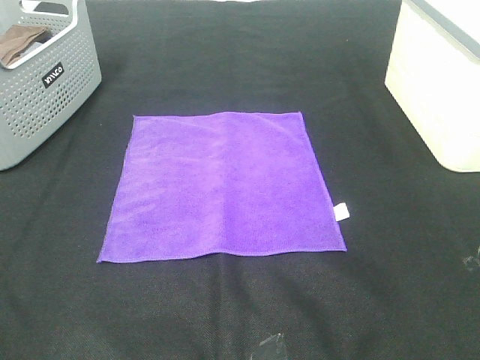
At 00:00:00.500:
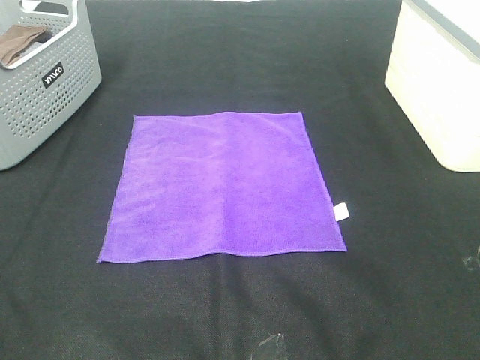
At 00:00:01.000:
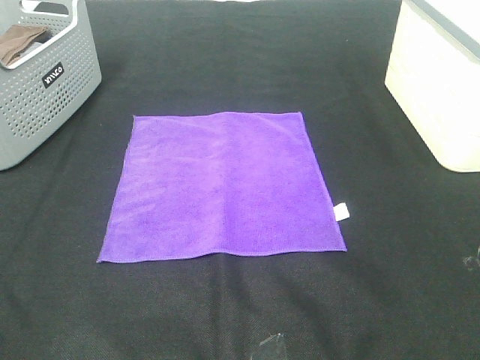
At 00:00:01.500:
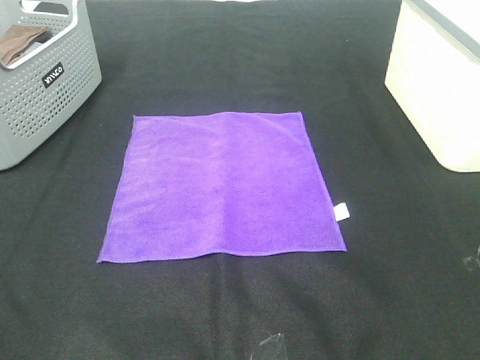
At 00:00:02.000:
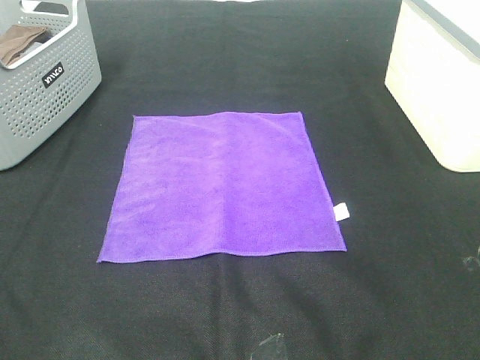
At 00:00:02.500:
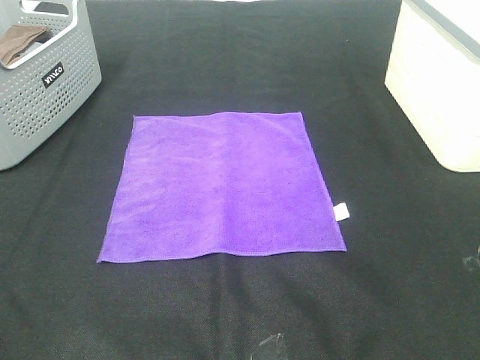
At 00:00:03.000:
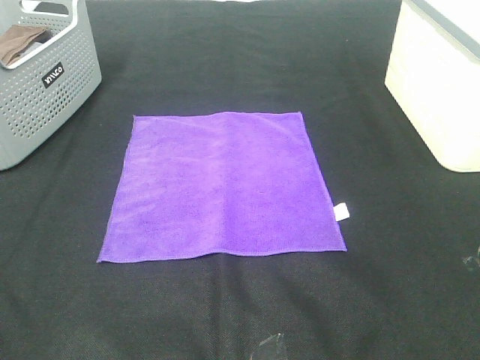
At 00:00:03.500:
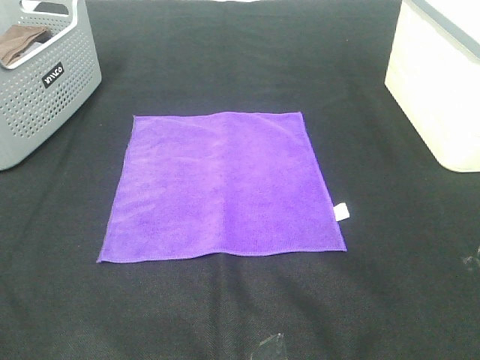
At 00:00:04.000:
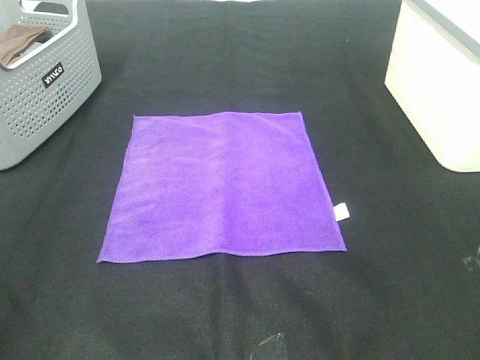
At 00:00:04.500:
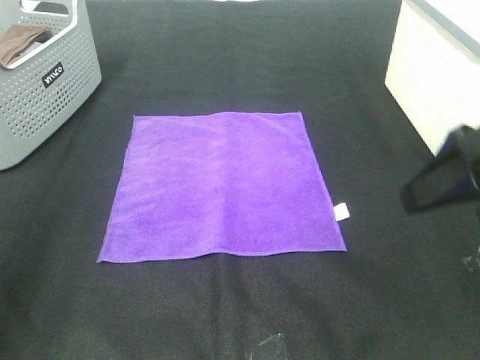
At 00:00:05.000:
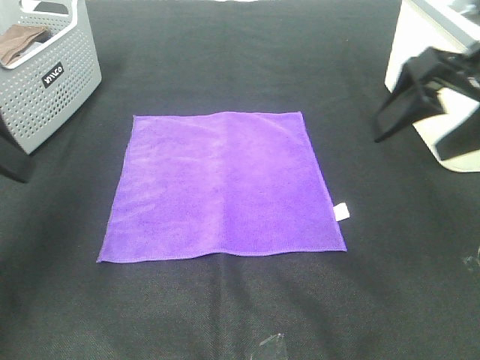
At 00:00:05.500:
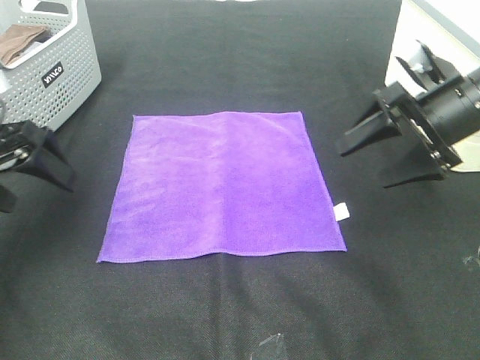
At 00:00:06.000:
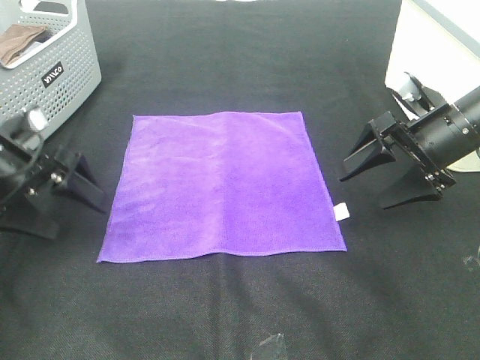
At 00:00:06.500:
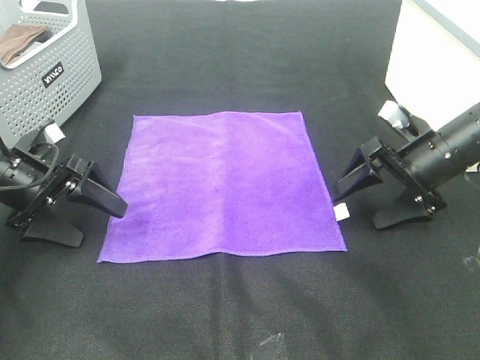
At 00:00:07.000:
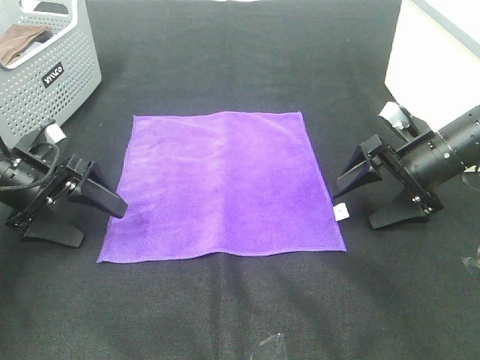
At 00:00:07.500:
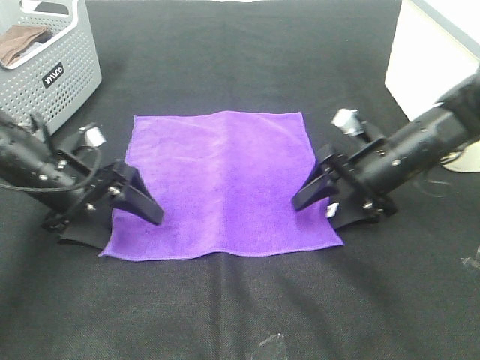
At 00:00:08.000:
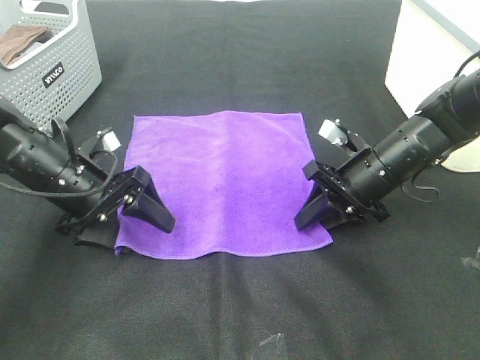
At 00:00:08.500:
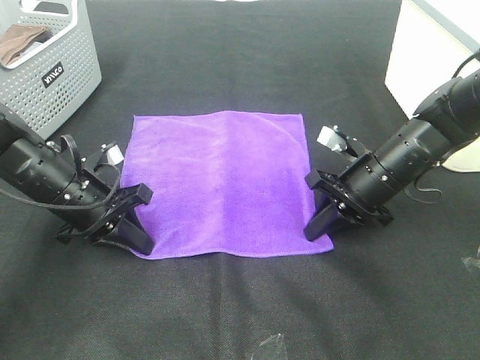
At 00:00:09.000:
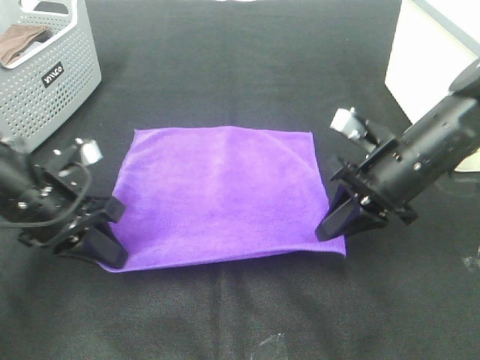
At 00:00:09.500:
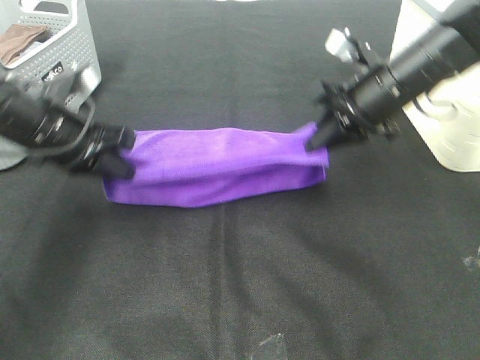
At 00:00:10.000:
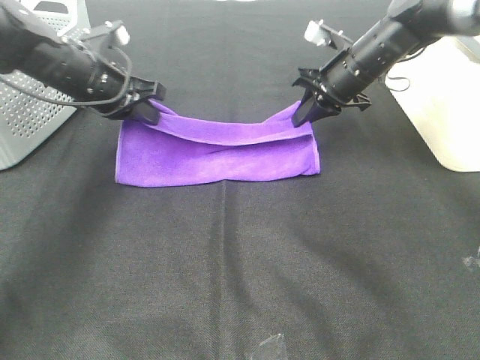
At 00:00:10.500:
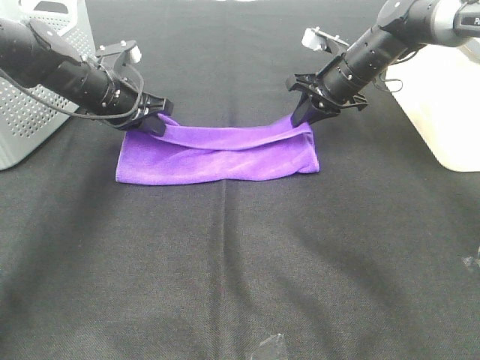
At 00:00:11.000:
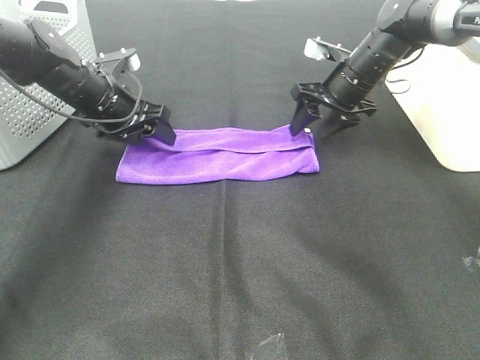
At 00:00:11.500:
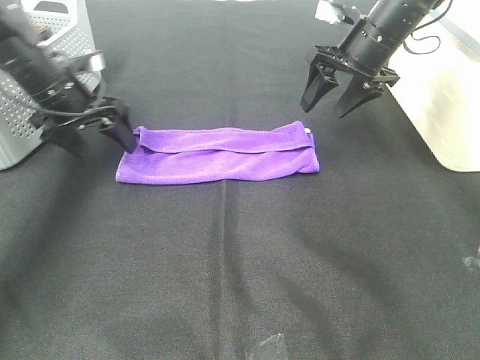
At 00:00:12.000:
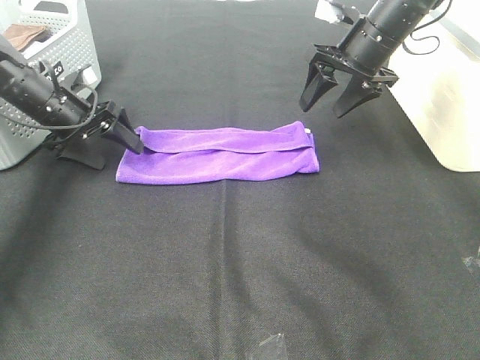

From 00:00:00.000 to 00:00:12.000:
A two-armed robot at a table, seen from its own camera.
Task of the whole recording: Fold towels.
Step, from 00:00:00.000 to 00:00:08.000: Left hand: grab the bottom left corner of purple towel.
Step, from 00:00:00.000 to 00:00:08.000: Right hand: grab the bottom right corner of purple towel.
Step, from 00:00:08.500 to 00:00:10.500: Left hand: fold the purple towel up.
Step, from 00:00:08.500 to 00:00:10.500: Right hand: fold the purple towel up.
From 00:00:00.000 to 00:00:02.000: The two grippers keep their place.
From 00:00:04.000 to 00:00:06.000: The grippers both shift forward and downward by approximately 30 cm.
From 00:00:06.000 to 00:00:08.000: The right gripper shifts some 10 cm downward and to the left, and closes, while the left gripper shifts roughly 10 cm to the right.
From 00:00:08.000 to 00:00:10.000: Both grippers travel together forward and upward, roughly 15 cm. The left gripper closes its fingers.
From 00:00:10.000 to 00:00:12.000: The right gripper moves upward, roughly 5 cm, and opens up; the left gripper goes some 10 cm to the left and downward, and opens.

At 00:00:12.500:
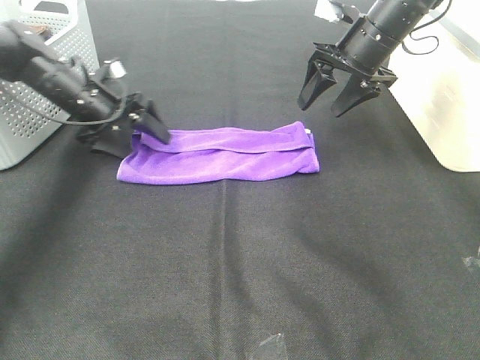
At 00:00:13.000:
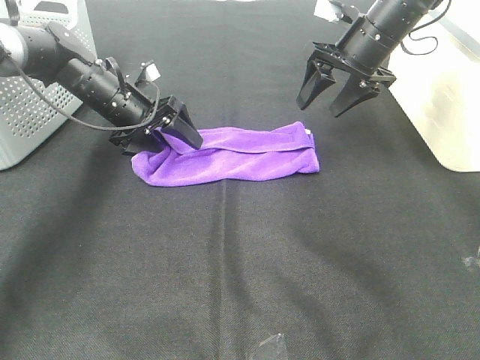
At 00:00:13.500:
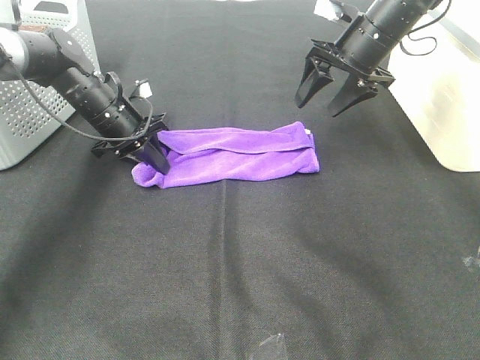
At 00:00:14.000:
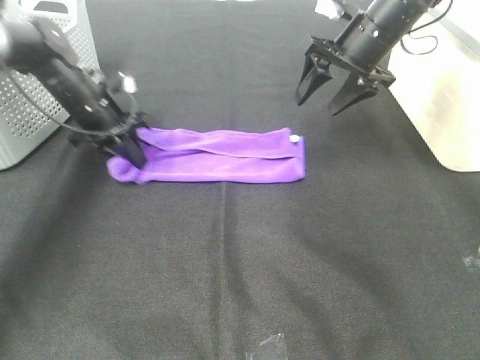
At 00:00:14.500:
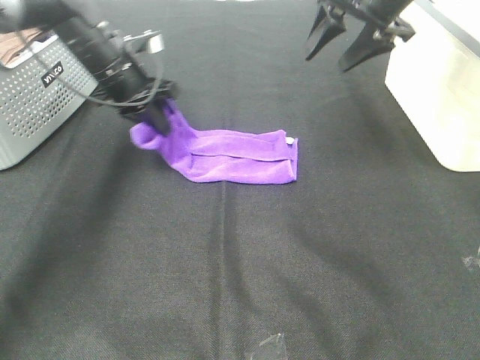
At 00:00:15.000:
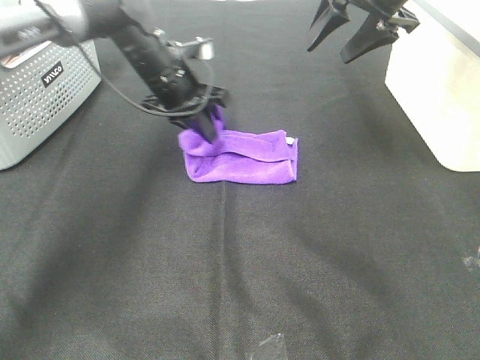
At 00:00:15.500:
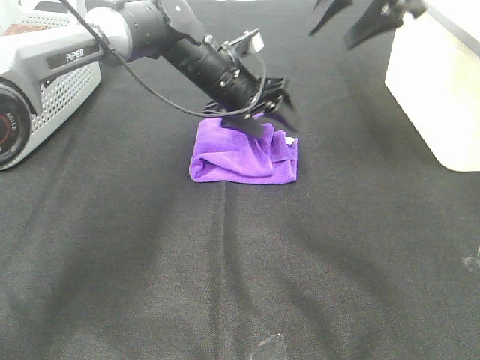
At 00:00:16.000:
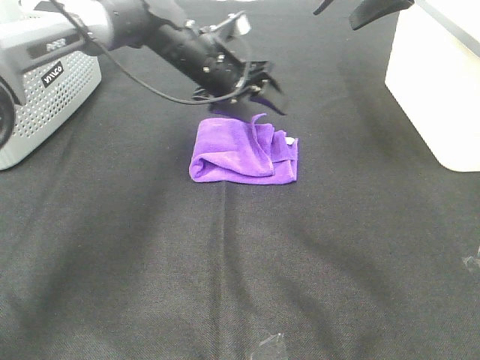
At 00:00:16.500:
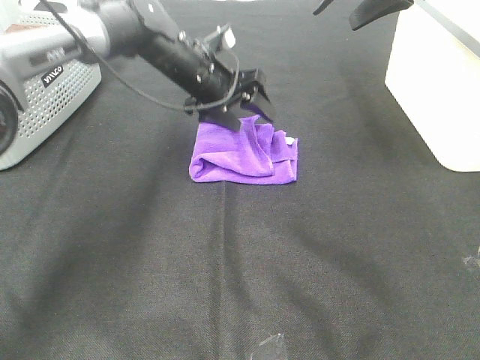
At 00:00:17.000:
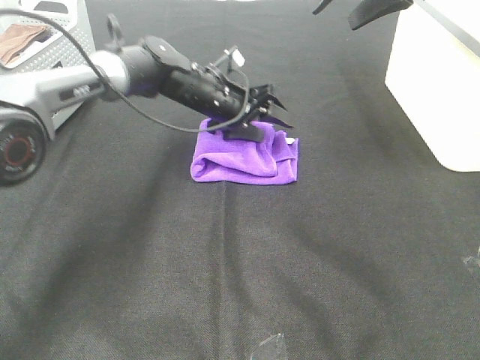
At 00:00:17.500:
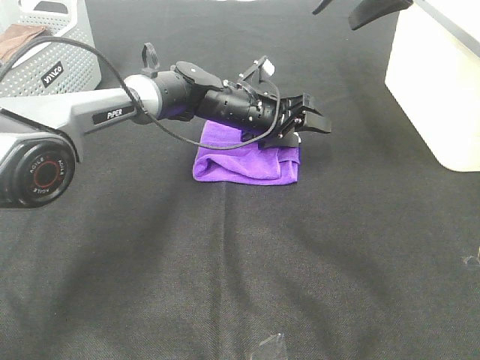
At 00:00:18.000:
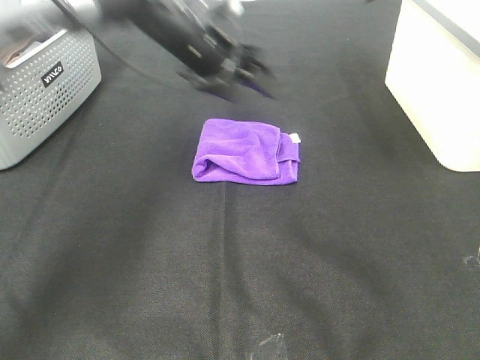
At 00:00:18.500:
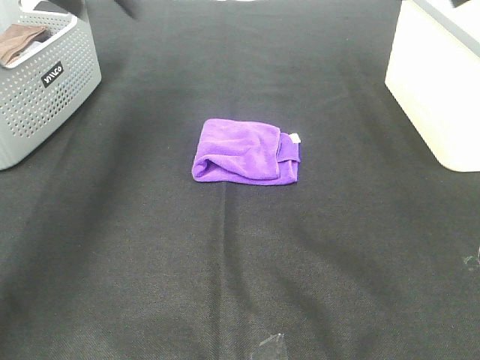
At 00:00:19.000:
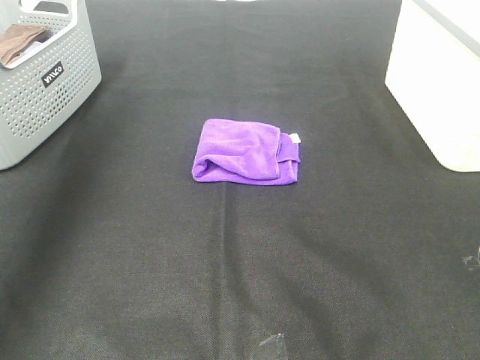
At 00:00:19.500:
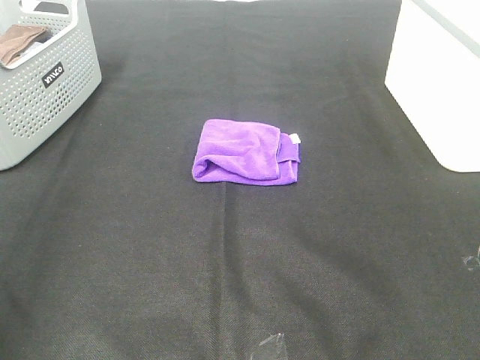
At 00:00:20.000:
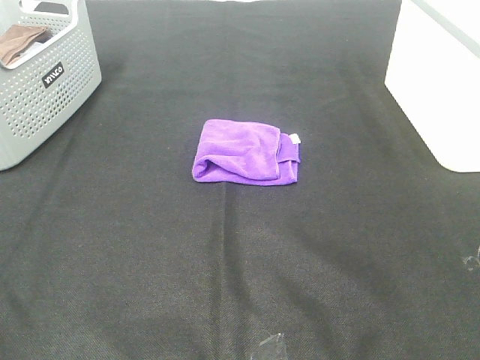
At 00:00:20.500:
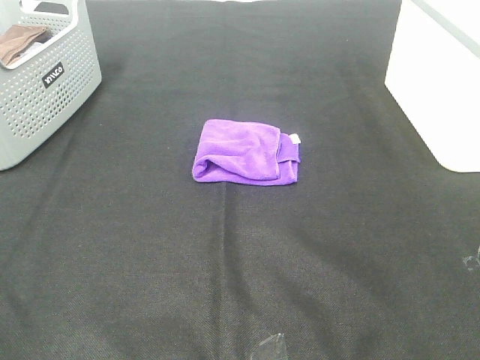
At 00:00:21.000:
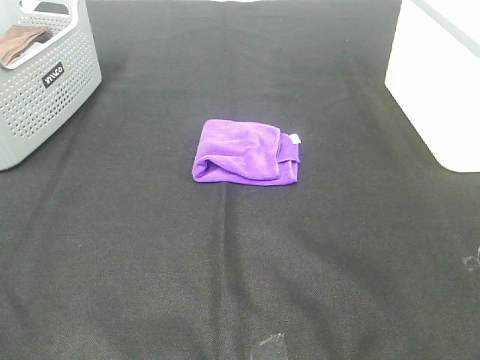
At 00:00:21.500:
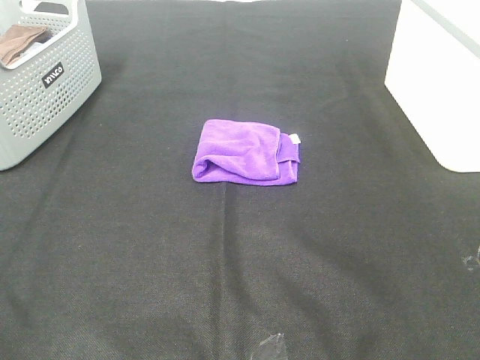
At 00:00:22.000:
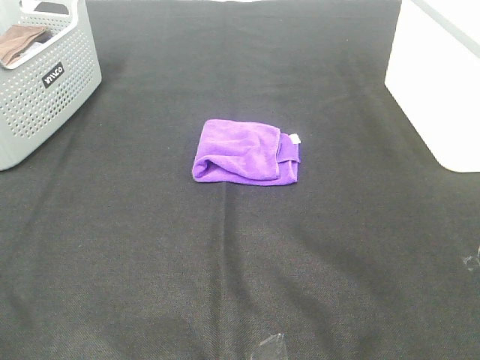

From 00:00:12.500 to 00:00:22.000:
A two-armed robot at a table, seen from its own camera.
Task of the whole recording: Fold towels.
Step, from 00:00:12.500 to 00:00:15.000: Left hand: fold the purple towel from left to right.
From 00:00:12.500 to 00:00:14.500: The left gripper shifts approximately 10 cm upward and to the right, and closes up; the right gripper shifts roughly 10 cm upward.
From 00:00:14.500 to 00:00:16.500: The right gripper travels upward by some 5 cm, while the left gripper shifts some 10 cm to the right, and opens its fingers.
From 00:00:16.500 to 00:00:18.000: The left gripper heads upward, covering approximately 5 cm.
From 00:00:18.000 to 00:00:20.000: The right gripper is displaced backward by roughly 40 cm, while the left gripper goes about 60 cm backward and to the left.
